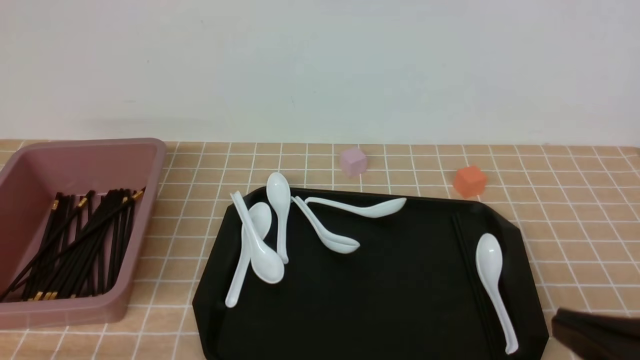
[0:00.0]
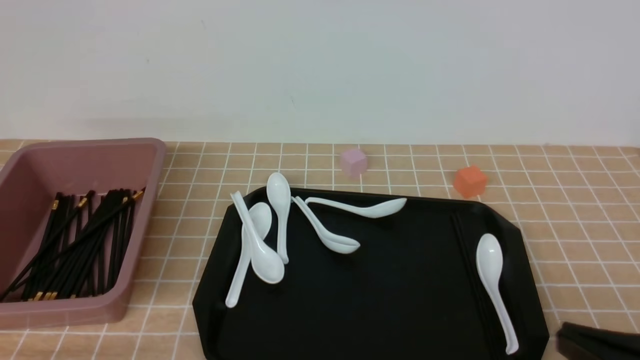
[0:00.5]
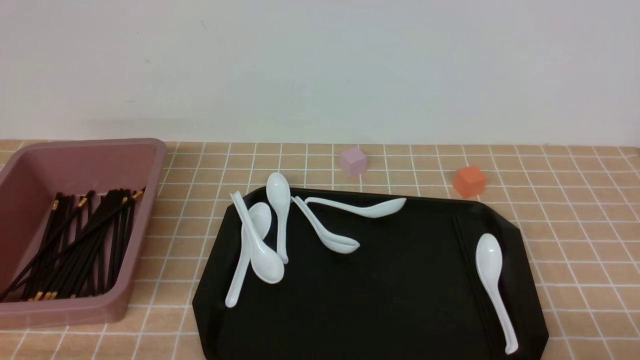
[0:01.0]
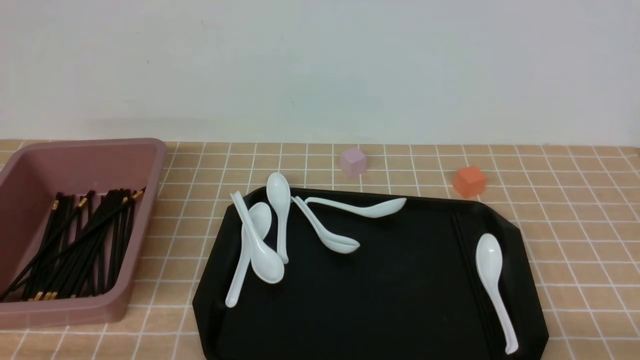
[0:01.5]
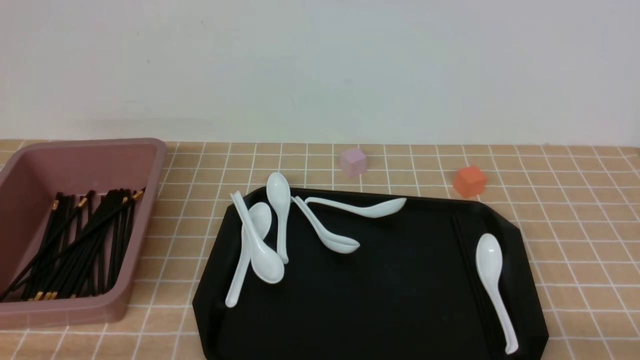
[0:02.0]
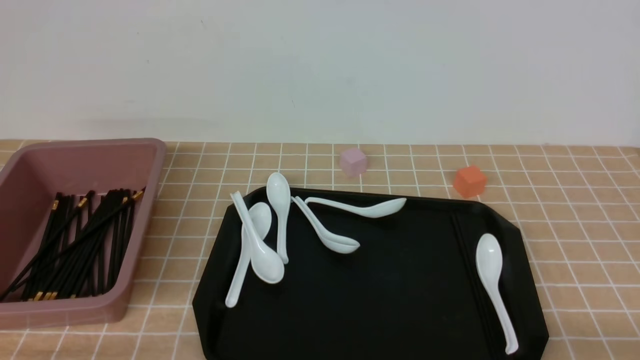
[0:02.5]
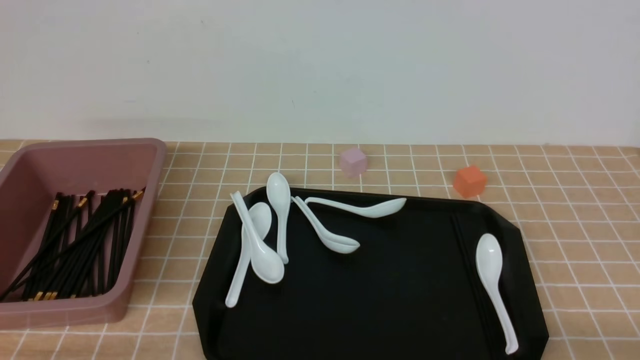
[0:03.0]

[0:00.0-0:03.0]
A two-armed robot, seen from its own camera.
0:00.0 to 0:01.5: The right gripper travels downward and to the right by some 10 cm.
0:01.5 to 0:03.0: Neither gripper changes place.

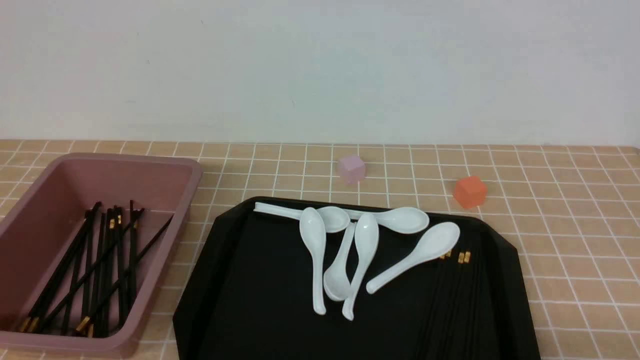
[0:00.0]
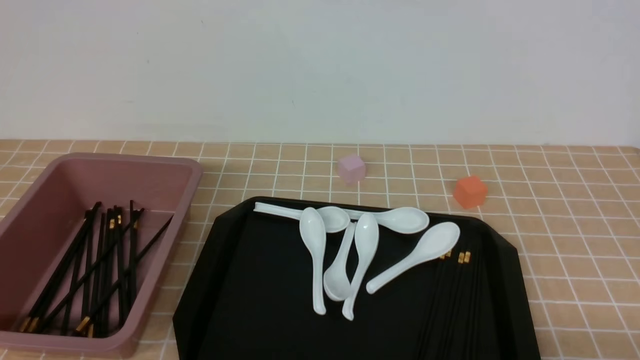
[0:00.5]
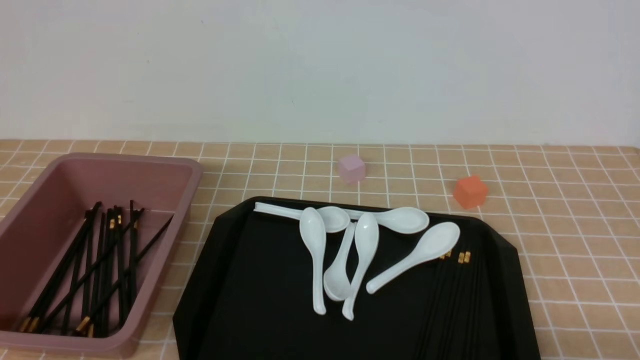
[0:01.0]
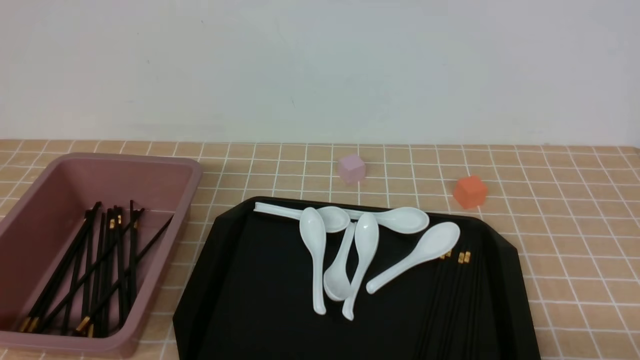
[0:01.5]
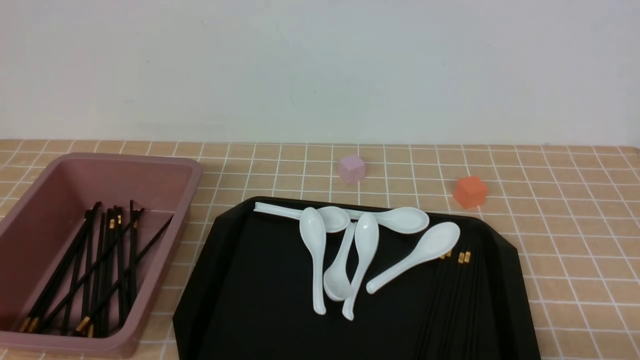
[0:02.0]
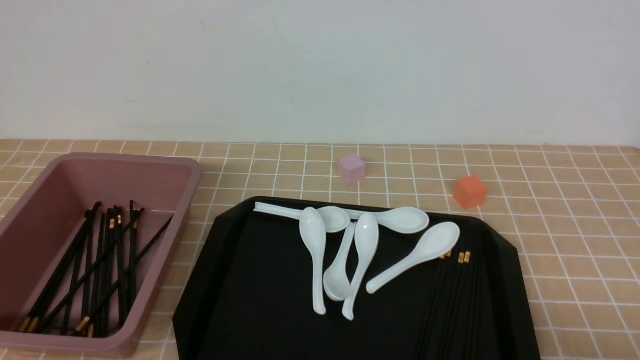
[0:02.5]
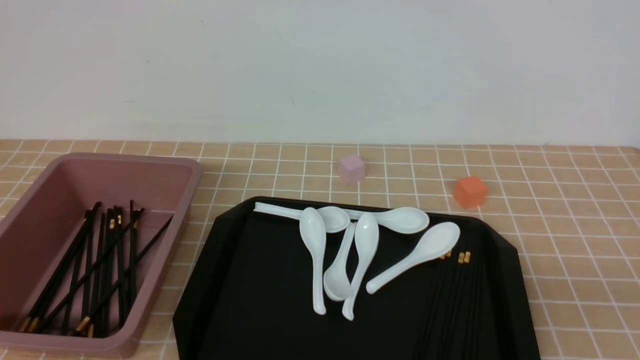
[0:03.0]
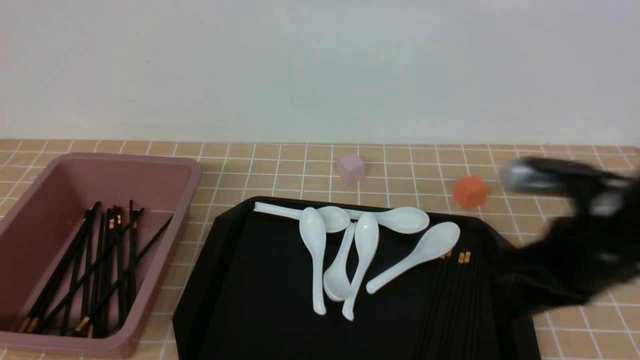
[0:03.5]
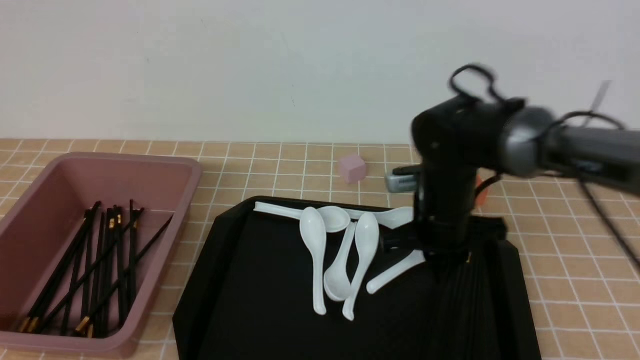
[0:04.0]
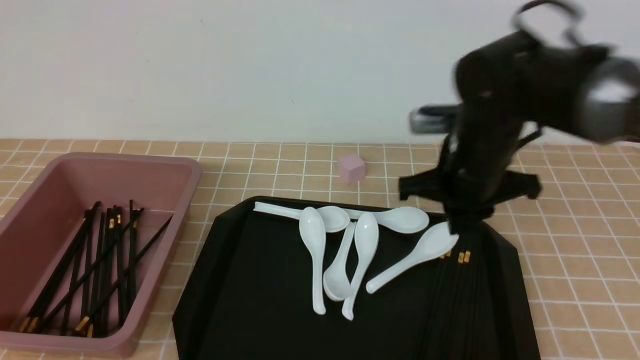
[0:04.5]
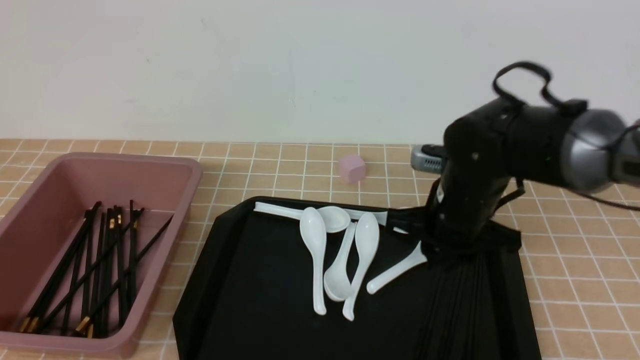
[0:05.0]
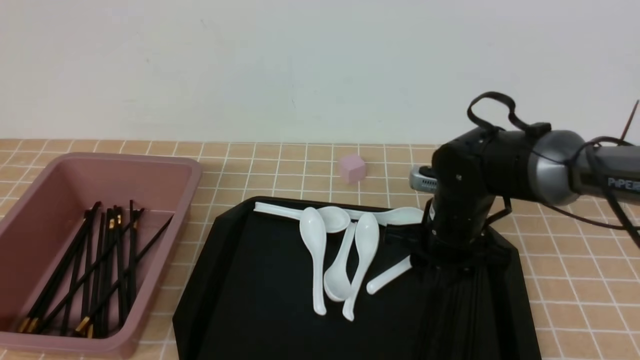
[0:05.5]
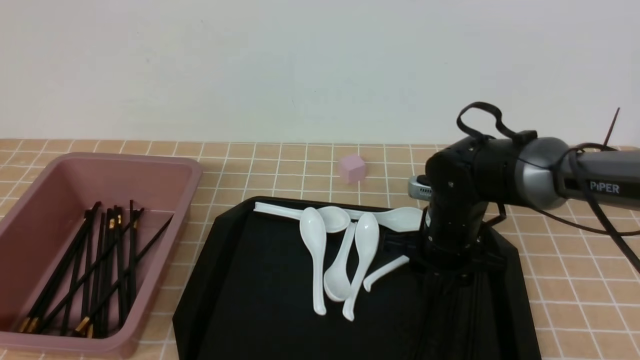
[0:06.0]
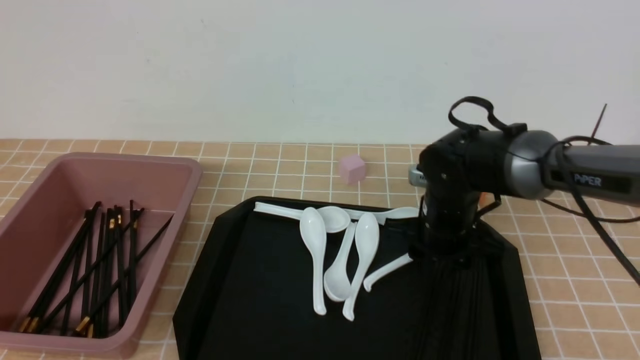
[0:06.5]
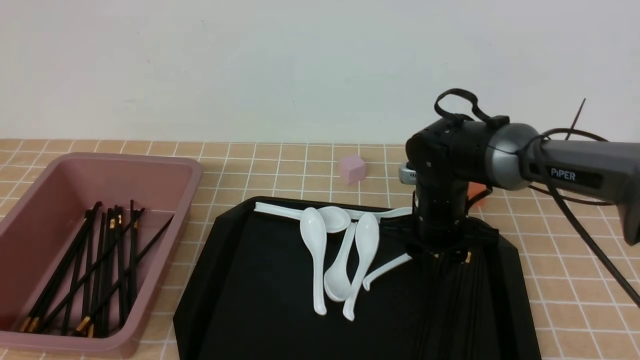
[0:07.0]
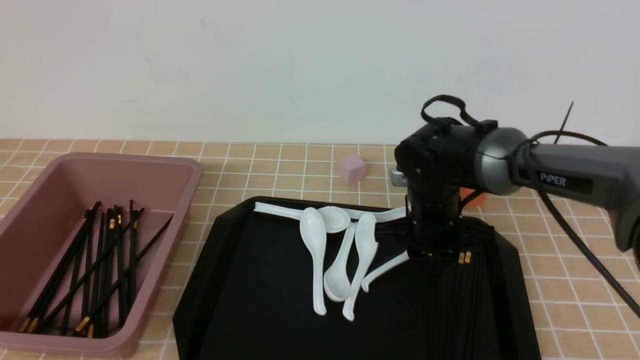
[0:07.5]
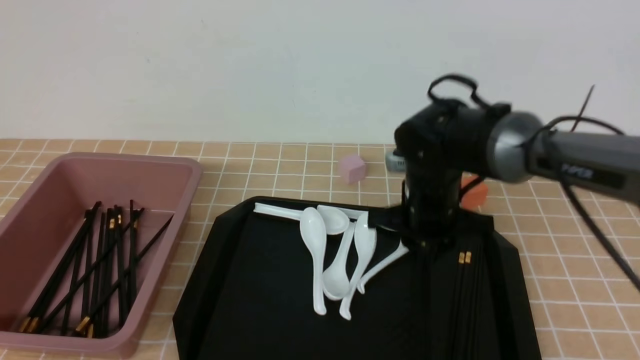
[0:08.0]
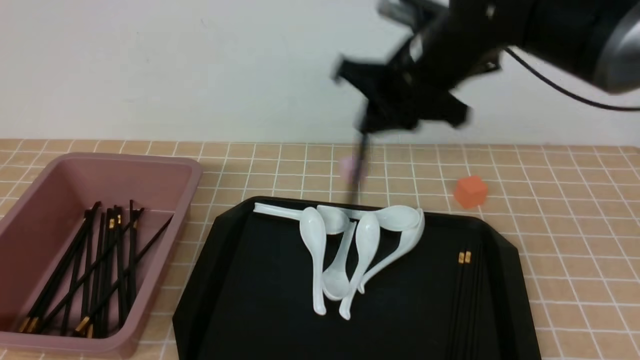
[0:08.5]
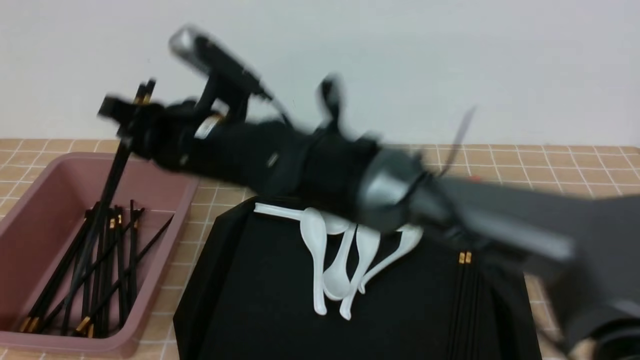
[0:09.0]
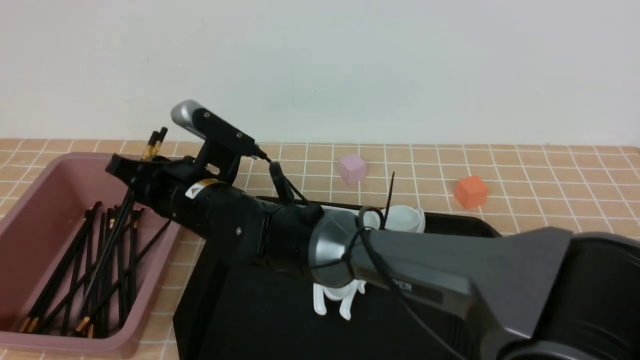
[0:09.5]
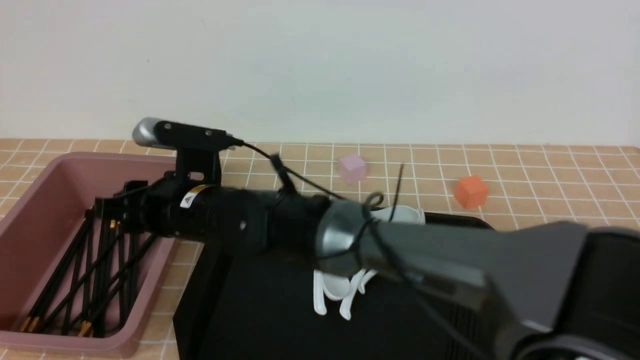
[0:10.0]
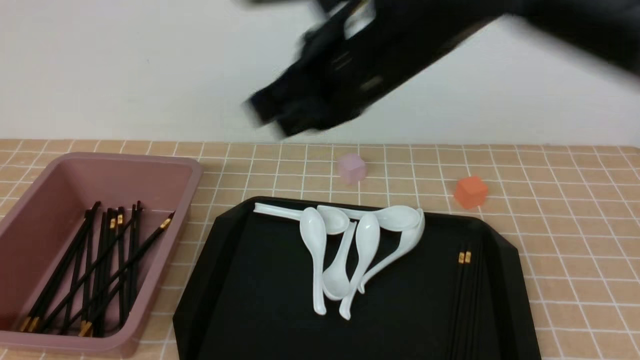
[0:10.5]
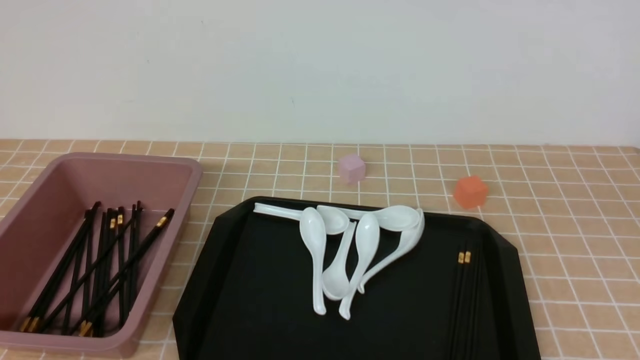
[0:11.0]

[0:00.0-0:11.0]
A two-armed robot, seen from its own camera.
Step, 0:00.0 to 0:08.0: use the right arm to grab a pair of chopsticks.
Step, 0:08.5 to 0:10.0: use the right arm to put the chopsticks into the lunch box.
0:02.0 to 0:03.5: The right gripper heads forward, upward and to the left, covering approximately 25 cm, and closes.
0:03.5 to 0:05.5: The right gripper goes about 20 cm downward, forward and to the left, and opens its fingers.
0:05.5 to 0:07.5: The right gripper closes up.
0:07.5 to 0:09.0: The right gripper goes approximately 25 cm to the left and upward.
0:09.0 to 0:11.0: The right gripper shifts some 40 cm to the right, backward and upward, and closes up.
